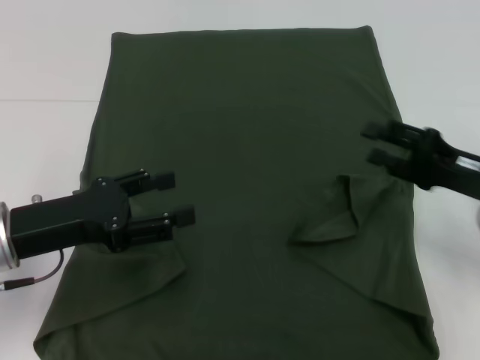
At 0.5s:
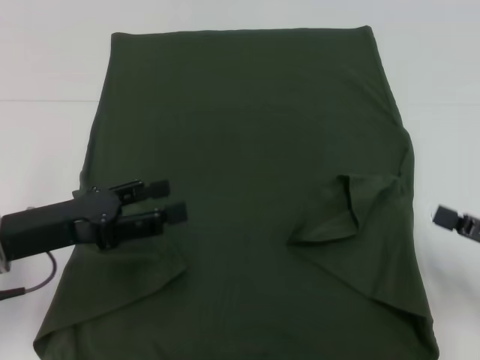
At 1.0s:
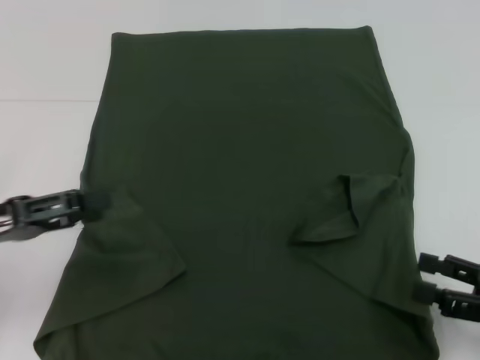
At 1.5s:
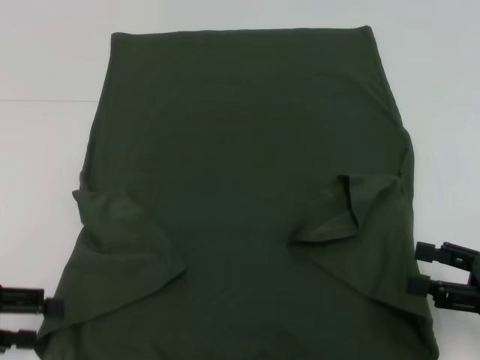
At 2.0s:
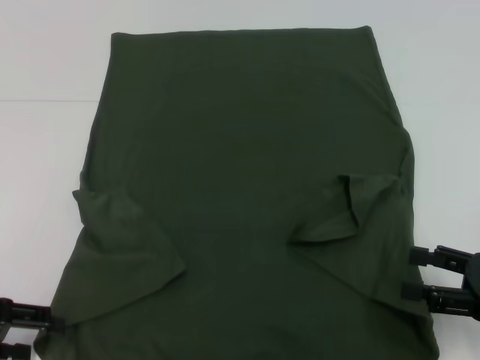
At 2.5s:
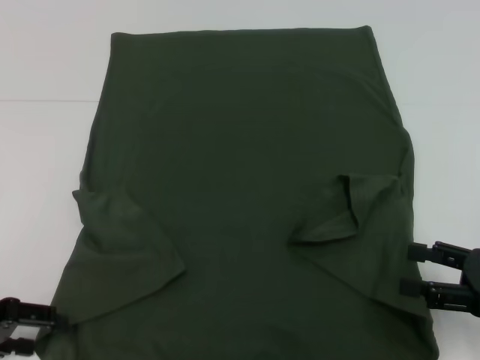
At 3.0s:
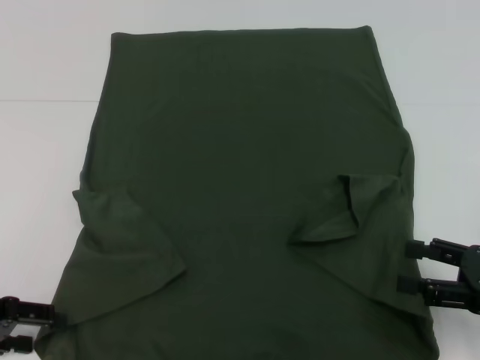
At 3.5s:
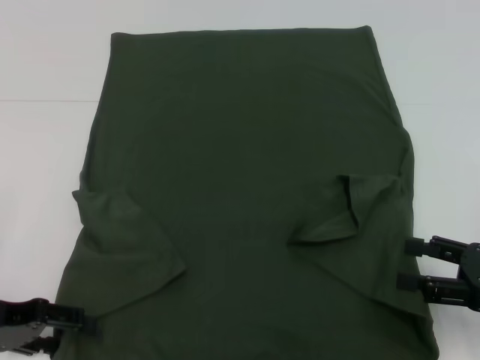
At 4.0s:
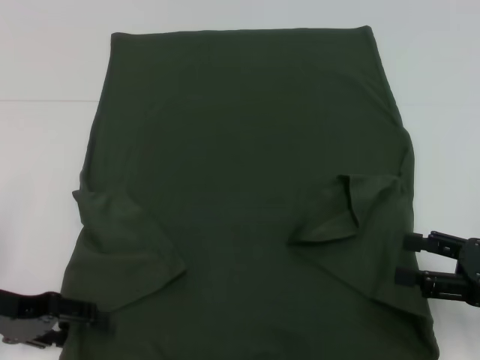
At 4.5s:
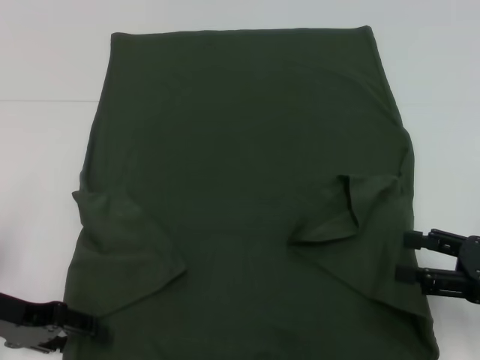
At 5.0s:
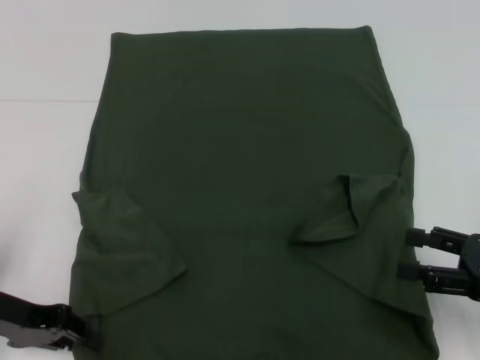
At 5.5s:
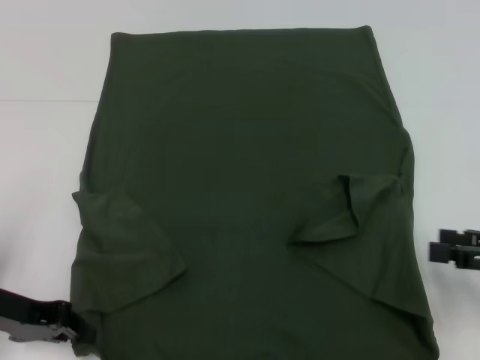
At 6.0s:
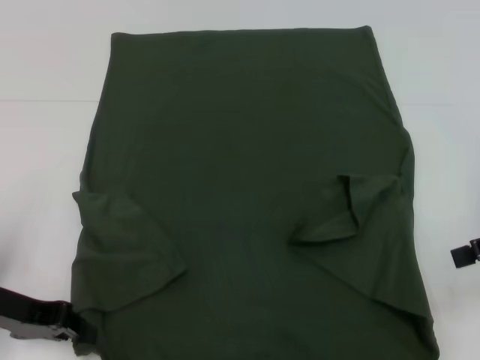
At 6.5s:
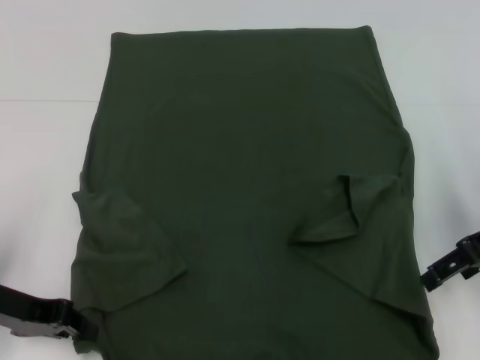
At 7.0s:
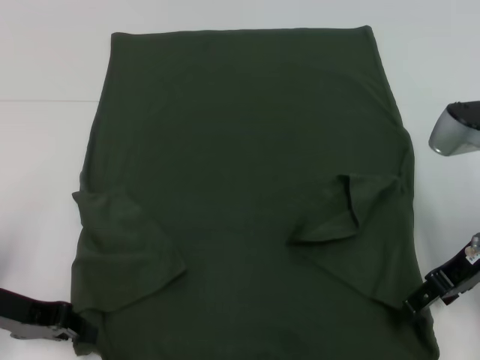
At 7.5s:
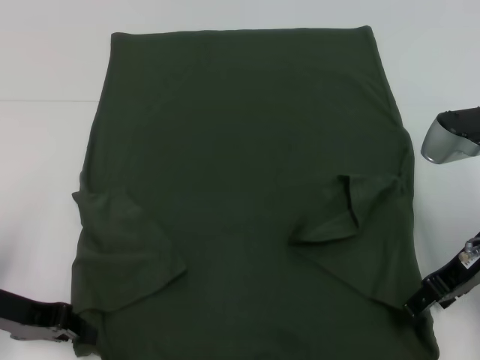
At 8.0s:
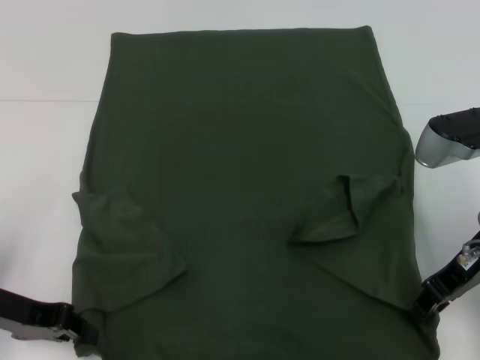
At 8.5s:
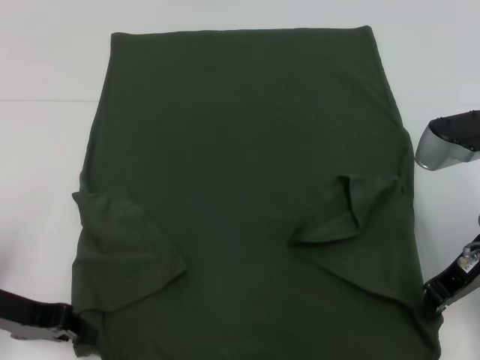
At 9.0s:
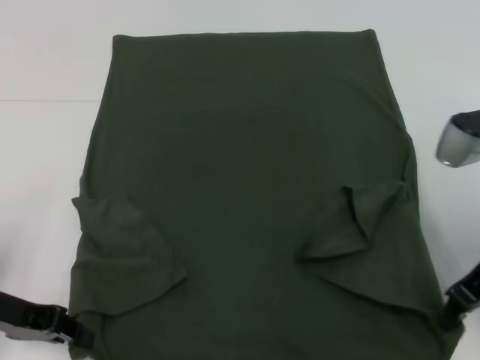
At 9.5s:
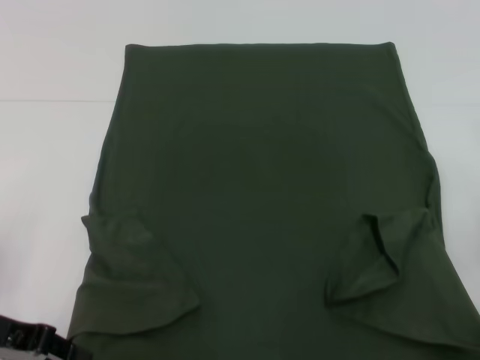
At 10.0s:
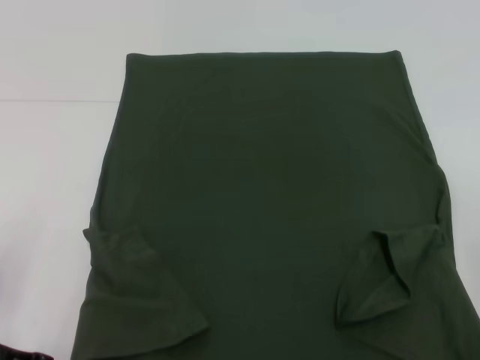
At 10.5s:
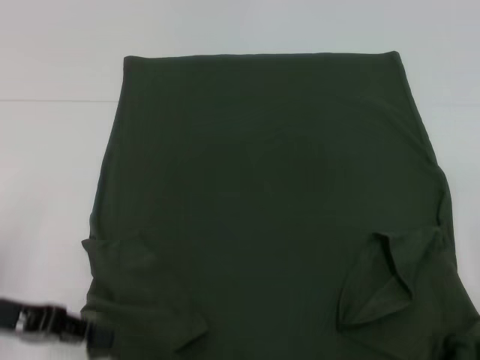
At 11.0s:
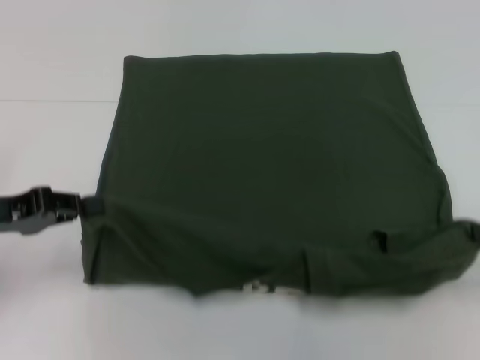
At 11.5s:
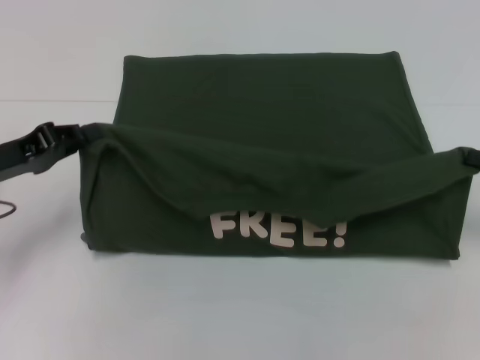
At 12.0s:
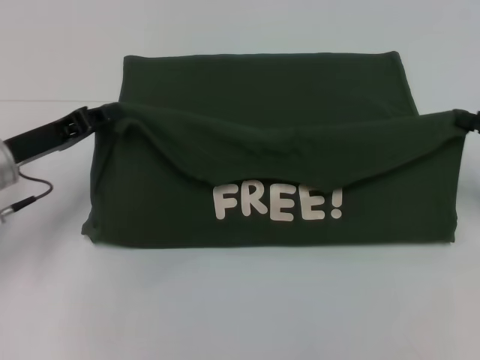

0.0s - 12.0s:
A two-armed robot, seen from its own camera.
Step, 0.0s - 5.5s: Grab the bottom left corner with your left hand.
Step, 6.0s - 9.0s: Grab the bottom right corner with your right hand.
0.0s - 2.0s: The left gripper heads to the left, covering about 10 cm. The right gripper heads backward, covering roughly 10 cm.
2.0s - 4.0s: The grippers move only a little.
4.0s - 6.0s: The right gripper heads upward and forward, covering some 10 cm; the left gripper closes up.
6.0s - 8.0s: The right gripper moves to the left, some 10 cm, and closes its fingers.
8.0s - 10.0s: The right gripper moves to the right and backward, some 15 cm, and closes up.
10.0s - 12.0s: Both grippers travel together forward, approximately 10 cm.

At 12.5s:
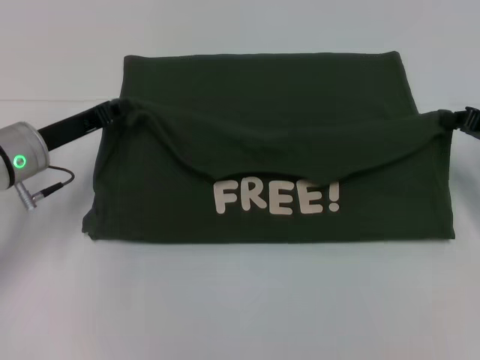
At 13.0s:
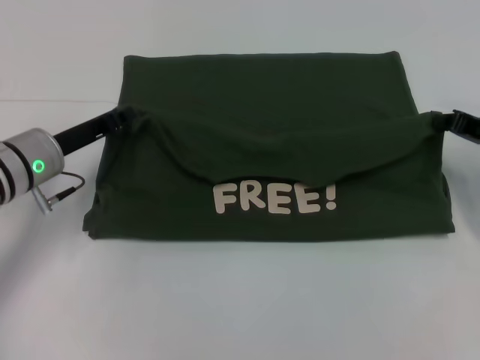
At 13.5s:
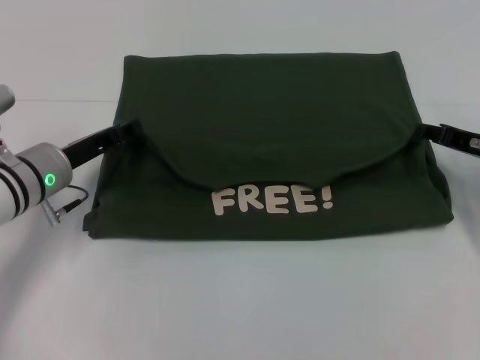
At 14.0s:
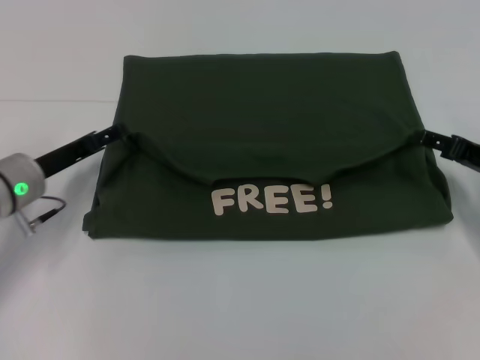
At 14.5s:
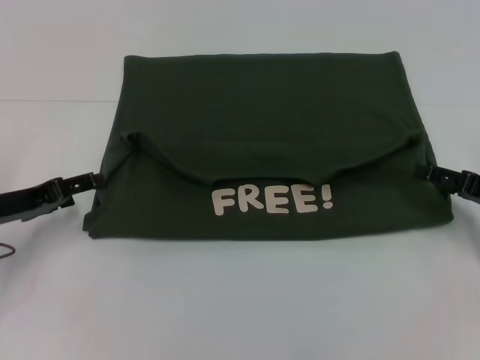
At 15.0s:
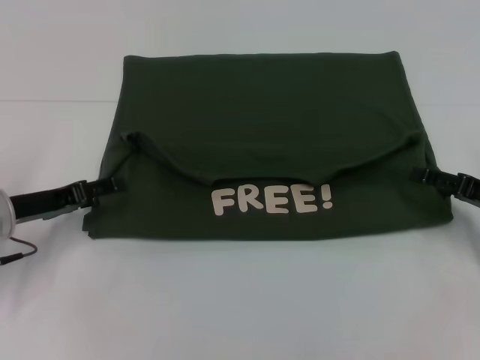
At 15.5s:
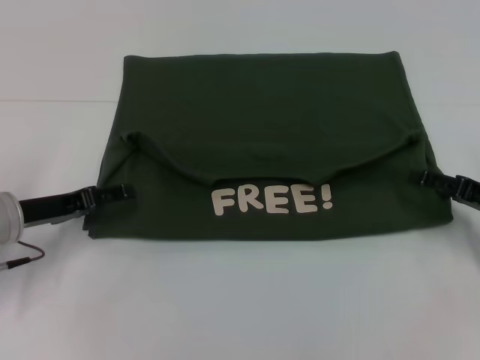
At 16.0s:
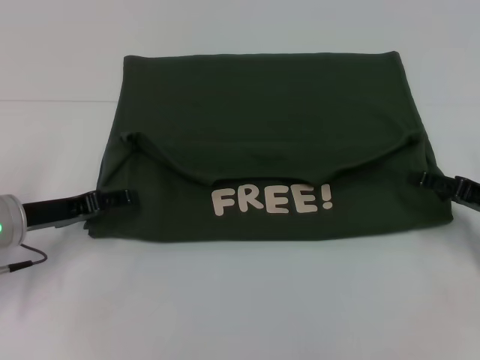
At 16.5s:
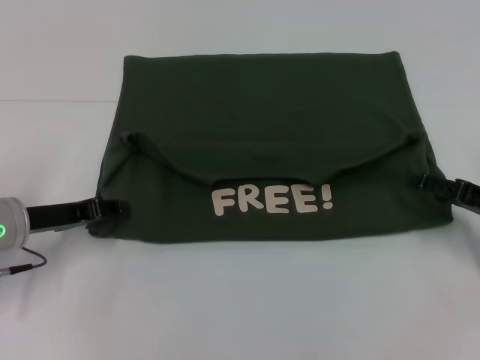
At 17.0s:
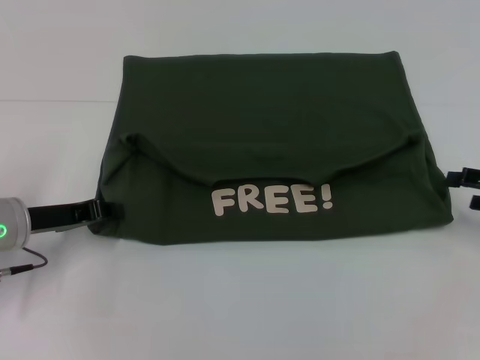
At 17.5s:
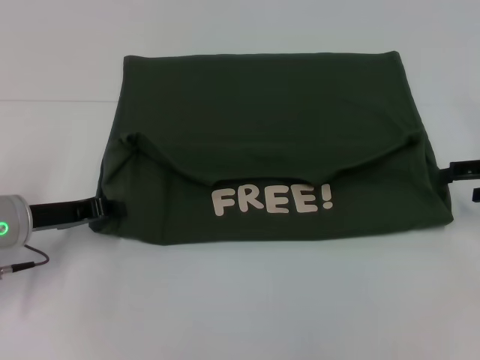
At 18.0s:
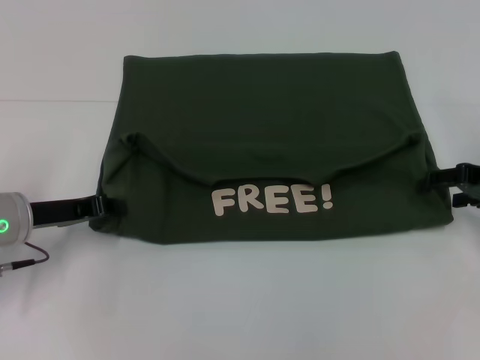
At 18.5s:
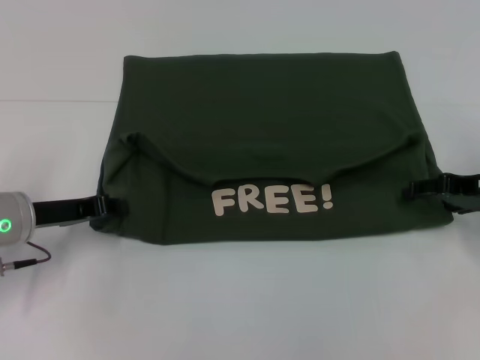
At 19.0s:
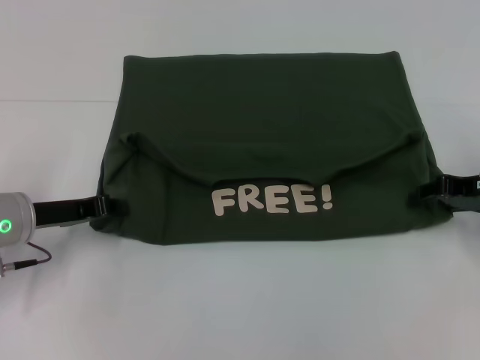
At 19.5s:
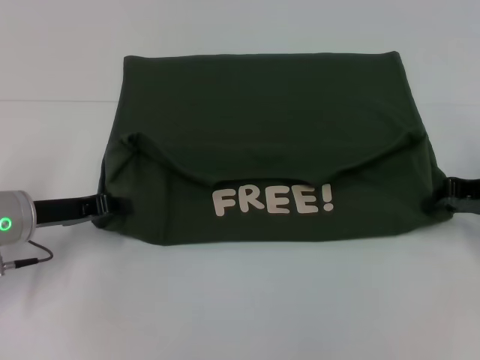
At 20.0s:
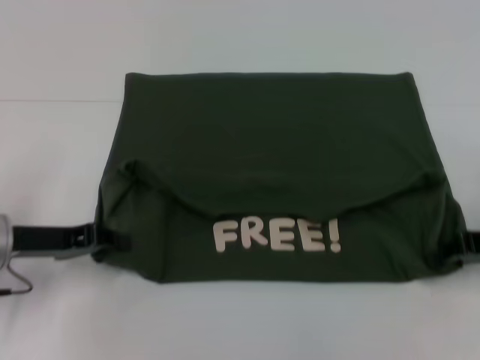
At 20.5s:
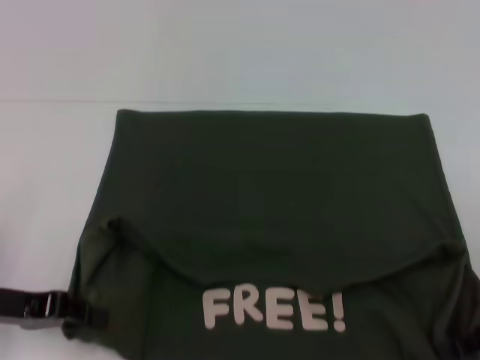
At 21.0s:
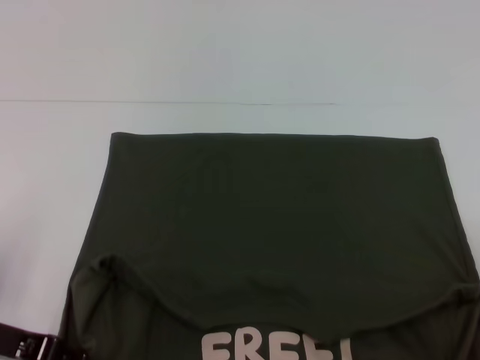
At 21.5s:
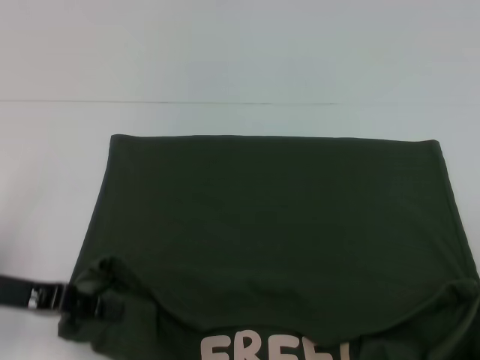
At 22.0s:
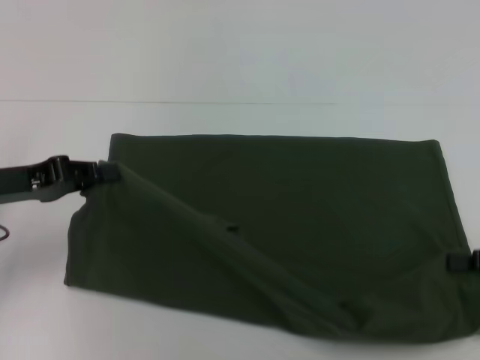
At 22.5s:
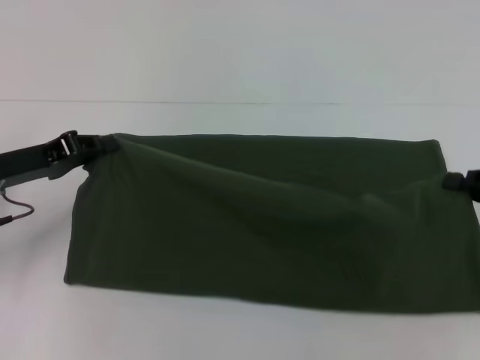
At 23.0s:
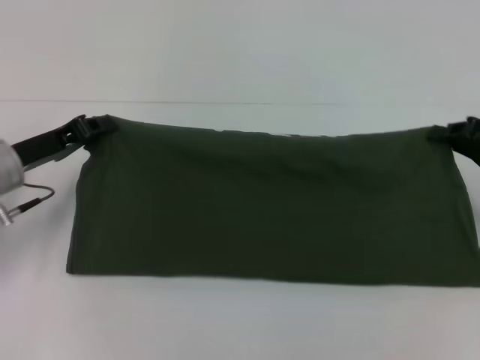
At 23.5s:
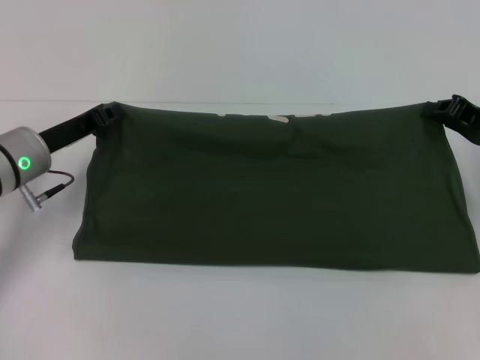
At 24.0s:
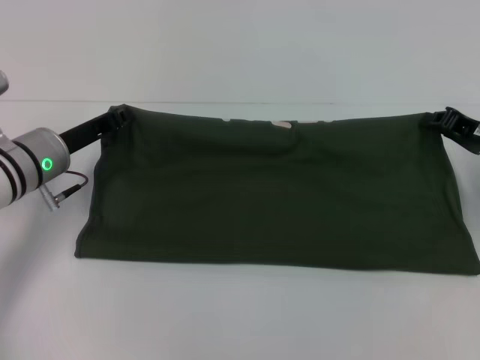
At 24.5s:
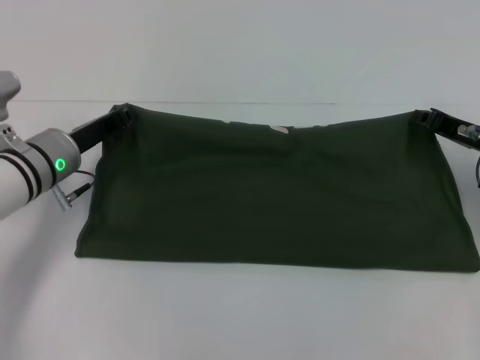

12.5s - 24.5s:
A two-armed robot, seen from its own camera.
Step, 14.0s - 21.0s: Pull the clothes with your left hand.
Step, 14.0s - 21.0s: Pull the clothes with your right hand.
12.5s - 14.5s: The right gripper heads backward, covering about 5 cm, and opens up. Meanwhile the left gripper travels to the left and backward by about 10 cm, and opens.
14.5s - 16.5s: The left gripper closes.
16.5s - 18.5s: The right gripper shifts some 5 cm forward. The left gripper closes.
18.5s - 20.5s: Both grippers move backward, approximately 10 cm. The right gripper closes.
20.5s - 22.5s: The right gripper shifts by some 5 cm, while the left gripper moves forward, some 10 cm.
22.5s - 24.5s: The right gripper moves forward and to the left, approximately 10 cm; the left gripper shifts approximately 10 cm to the right and forward.

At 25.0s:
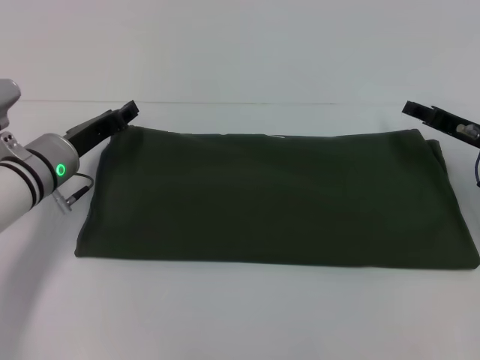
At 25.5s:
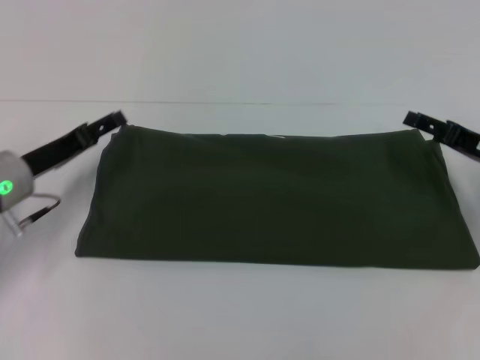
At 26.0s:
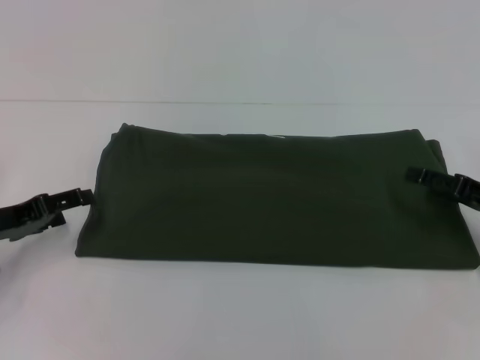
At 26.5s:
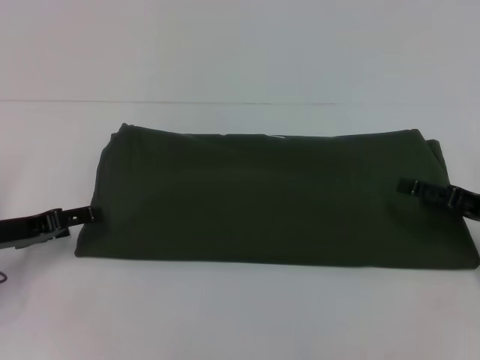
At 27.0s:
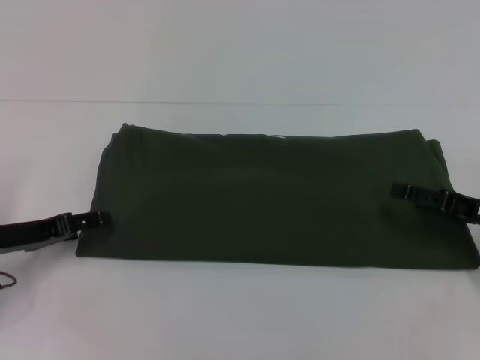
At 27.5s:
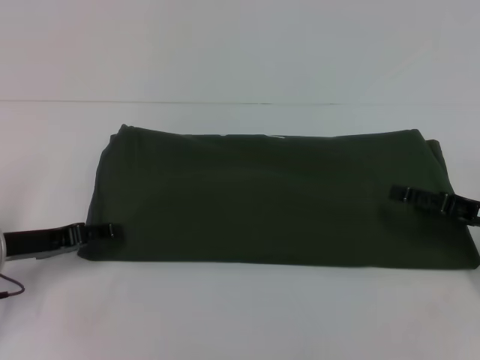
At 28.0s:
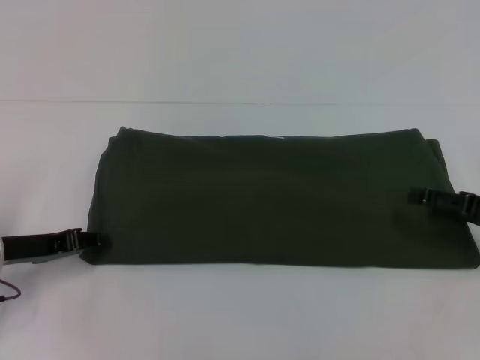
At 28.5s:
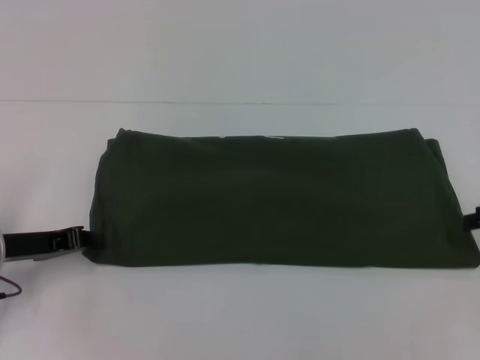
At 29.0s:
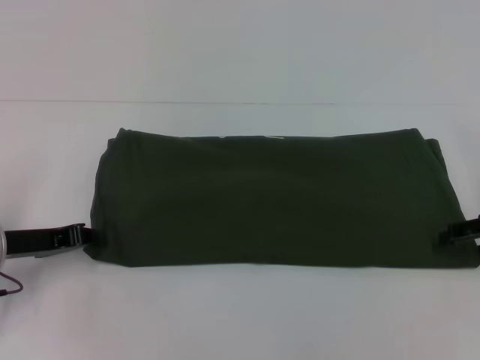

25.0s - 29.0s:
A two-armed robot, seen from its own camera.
25.0s - 27.0s: The right gripper moves backward, approximately 10 cm, and opens up. Meanwhile the left gripper moves backward and to the left, approximately 10 cm, and opens up.
27.0s - 29.0s: The right gripper is displaced upward by approximately 5 cm. The left gripper closes.
